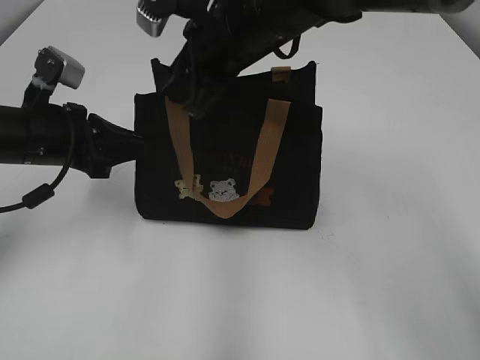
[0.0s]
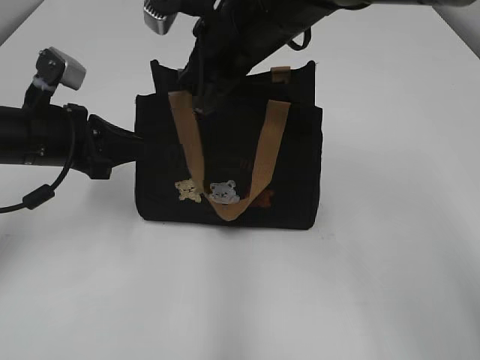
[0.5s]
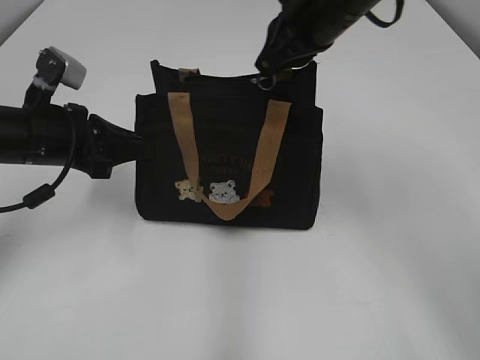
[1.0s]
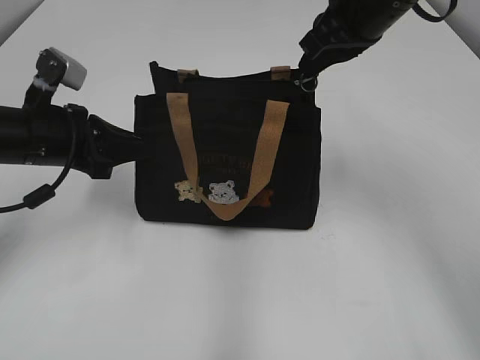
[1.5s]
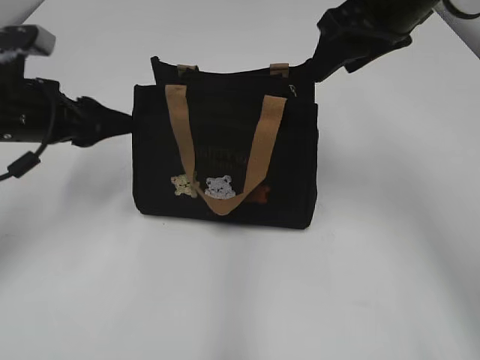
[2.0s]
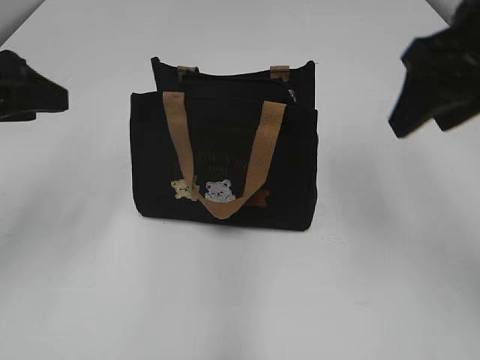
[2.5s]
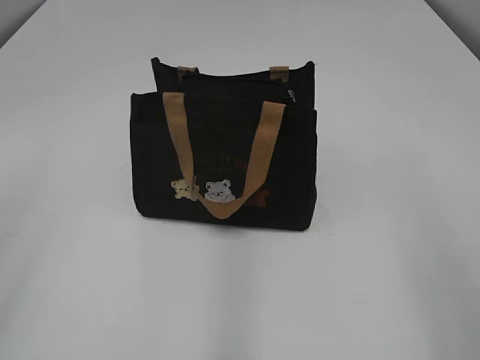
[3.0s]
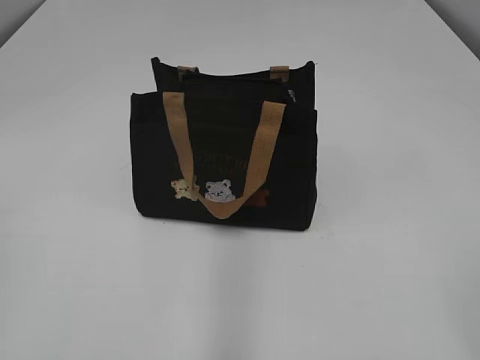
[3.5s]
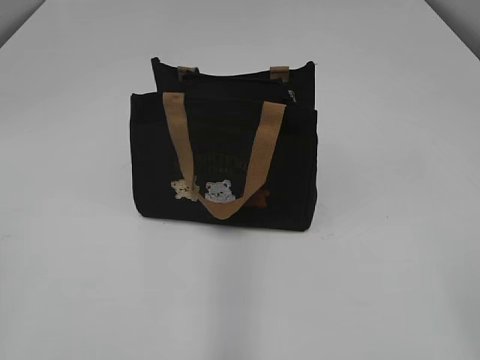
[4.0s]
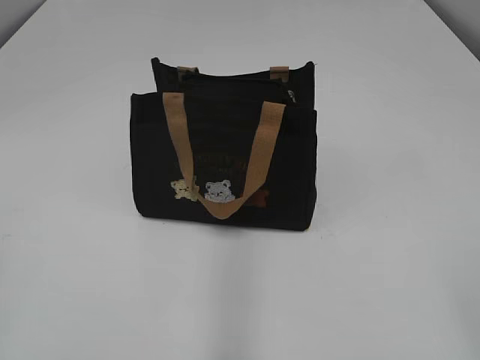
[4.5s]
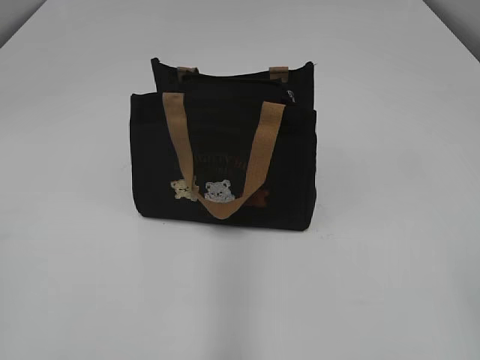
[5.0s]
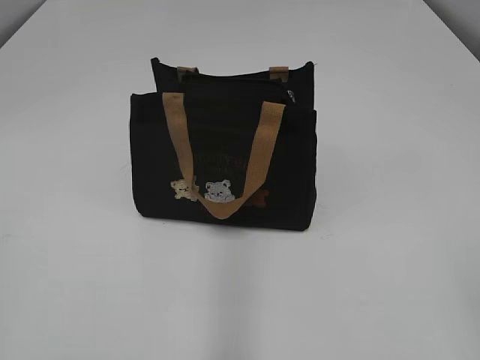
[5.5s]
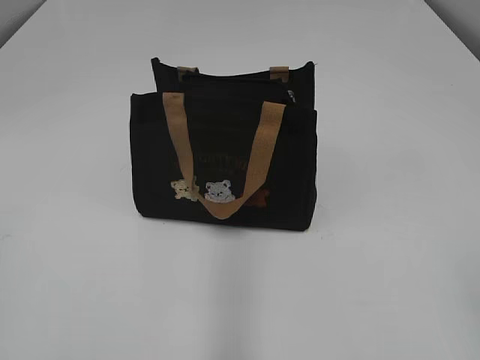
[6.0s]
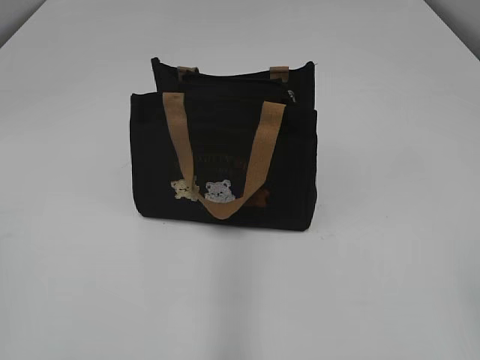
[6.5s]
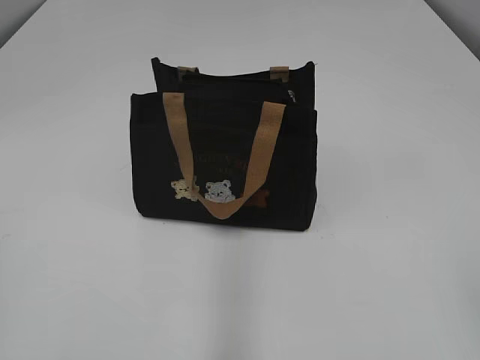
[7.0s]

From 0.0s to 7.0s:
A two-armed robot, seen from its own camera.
From 0.0s to 2.0s: The left gripper opens up; the right gripper travels to the right by some 15 cm, and closes, then opens again.
From 2.0s to 3.5s: Both grippers move backward, approximately 35 cm.
